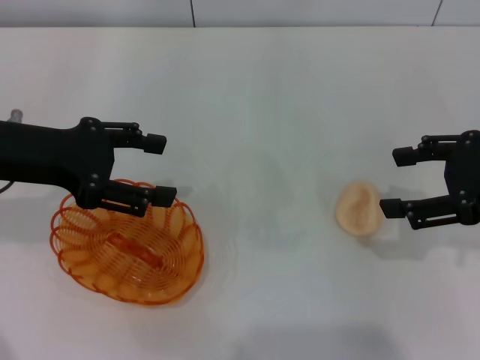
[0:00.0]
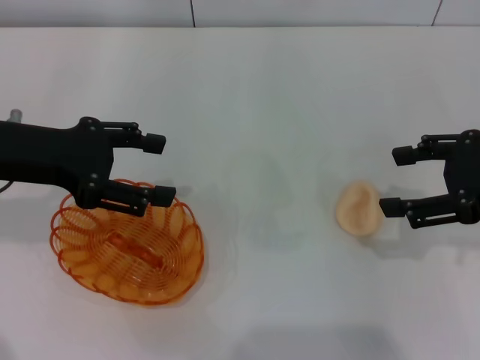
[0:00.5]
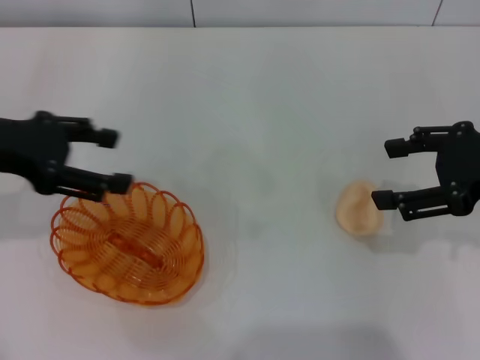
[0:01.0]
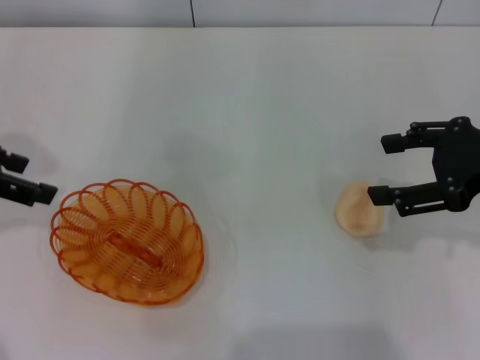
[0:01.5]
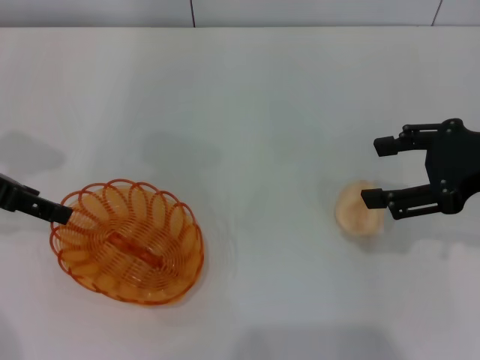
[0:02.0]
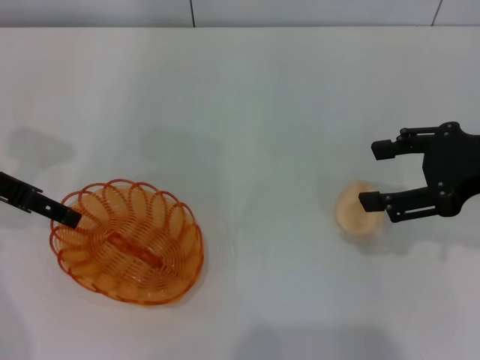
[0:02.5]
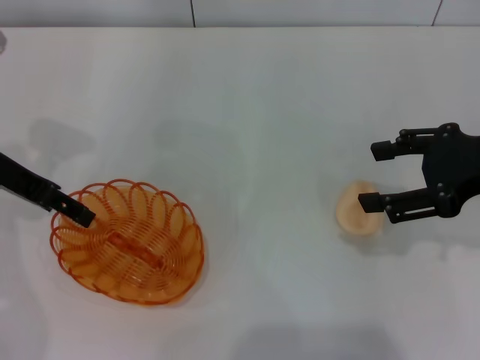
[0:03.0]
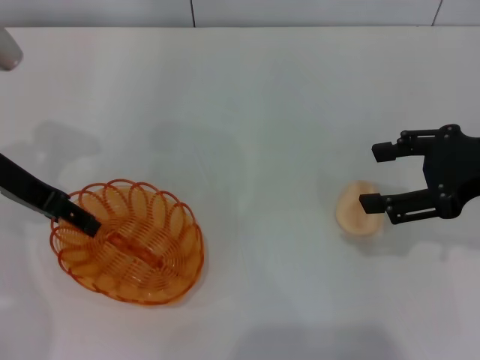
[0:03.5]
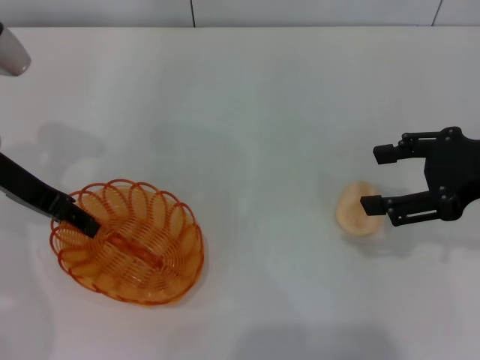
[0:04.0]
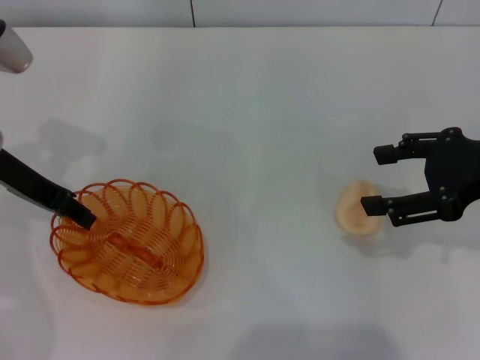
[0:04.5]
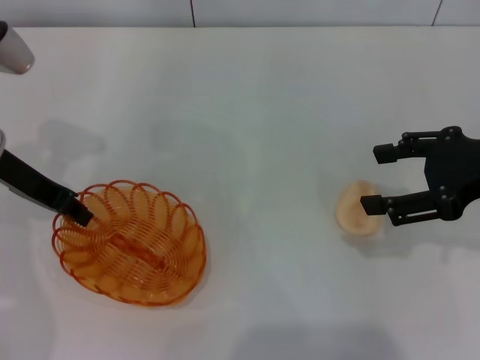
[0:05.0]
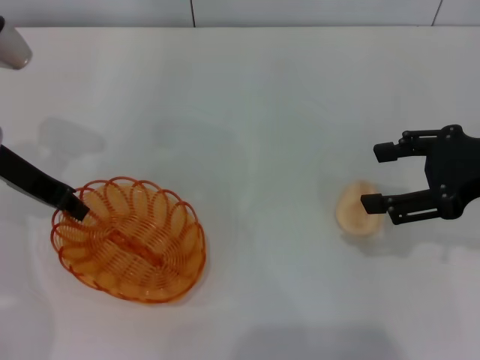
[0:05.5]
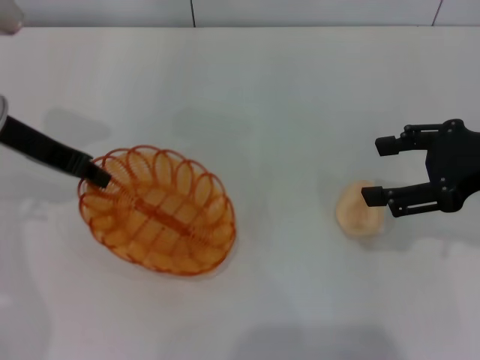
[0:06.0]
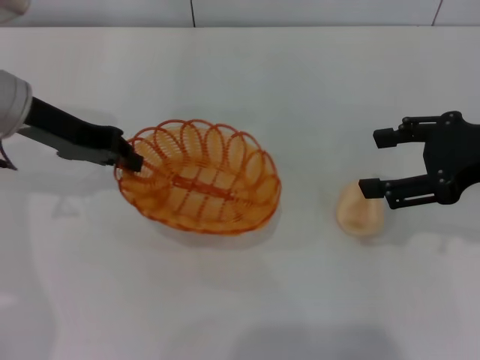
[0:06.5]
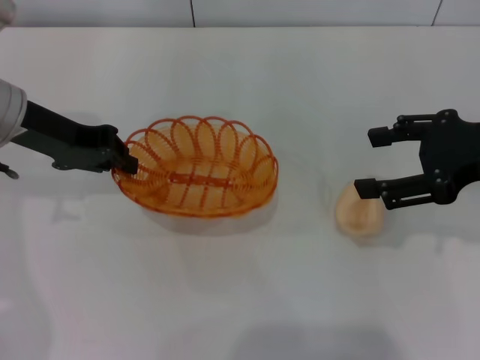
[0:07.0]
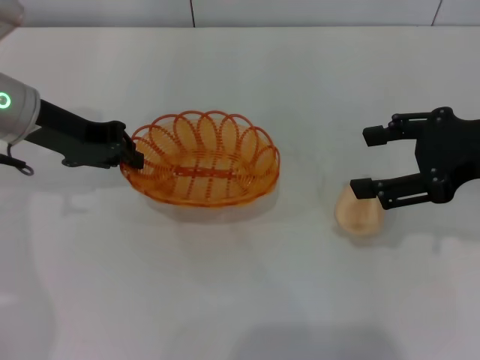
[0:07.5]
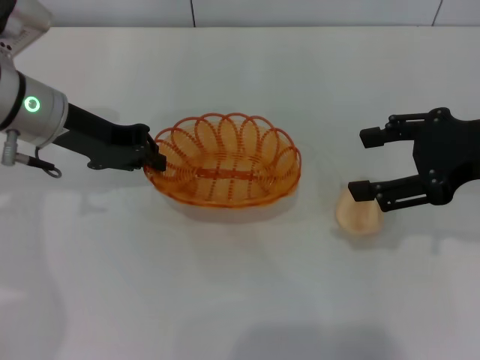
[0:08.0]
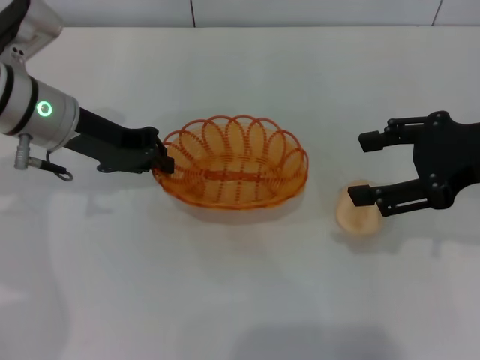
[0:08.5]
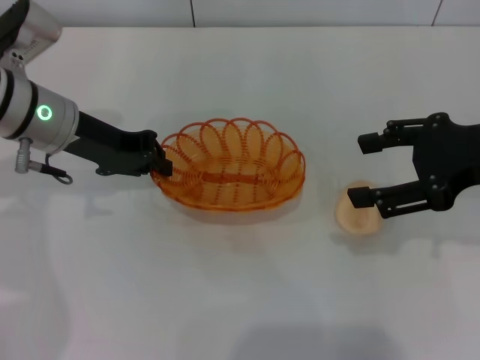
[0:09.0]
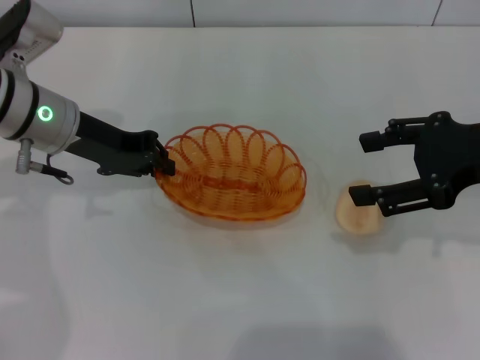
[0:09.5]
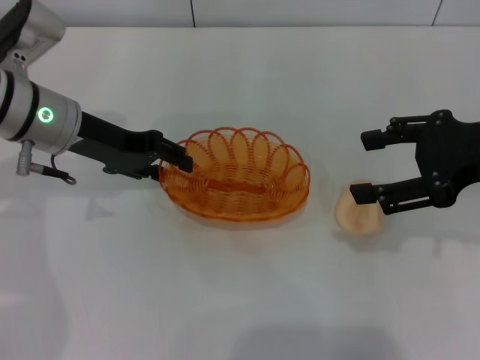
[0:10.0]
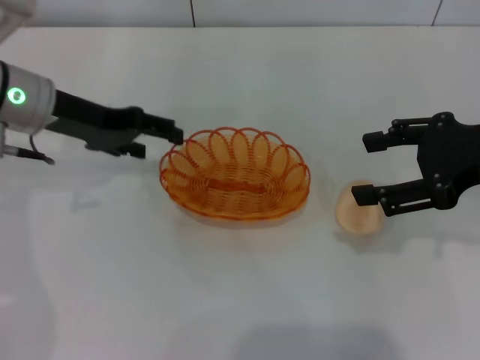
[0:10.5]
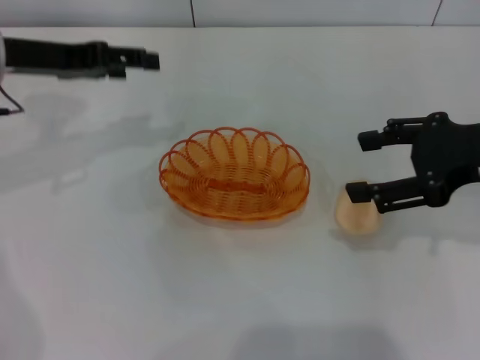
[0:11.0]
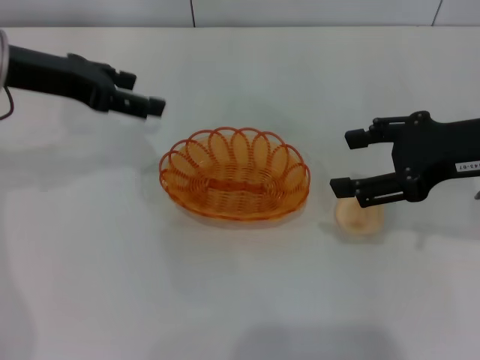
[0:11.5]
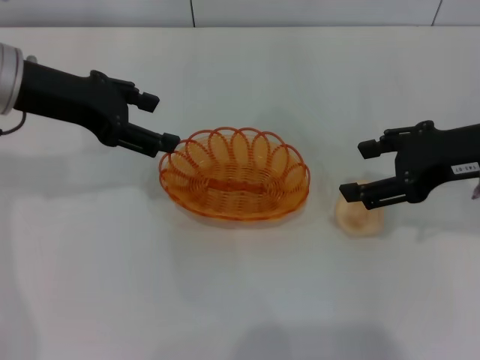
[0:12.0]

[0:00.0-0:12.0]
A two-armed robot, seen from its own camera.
Step, 0:00.0 to 0:07.0: Pick up the basket with the left gripper.
Step, 0:07.5 to 0:10.5: Place the basket in the center of view with the left gripper.
0:00.0 to 0:02.0: The left gripper heads to the left, covering some 5 cm.
0:02.0 to 0:04.0: The left gripper shifts by about 5 cm.
0:04.0 to 0:06.0: The left gripper closes.
0:08.0 to 0:10.0: The left gripper opens its fingers.
0:10.0 to 0:12.0: The left gripper shifts roughly 5 cm upward, and opens.

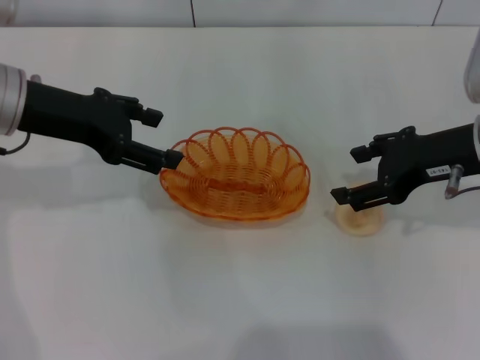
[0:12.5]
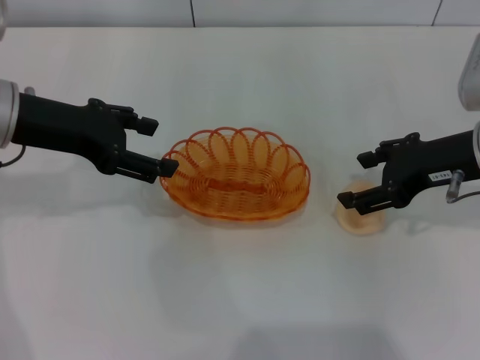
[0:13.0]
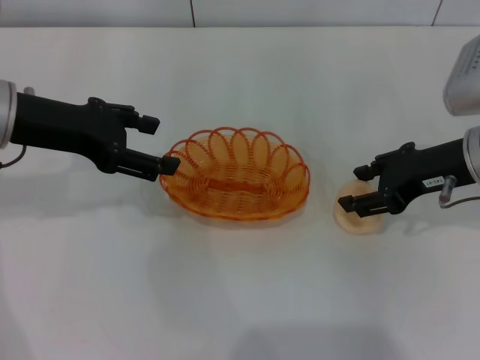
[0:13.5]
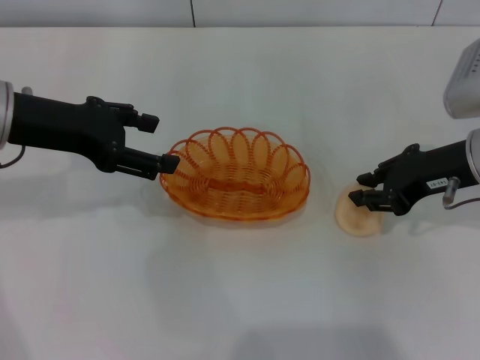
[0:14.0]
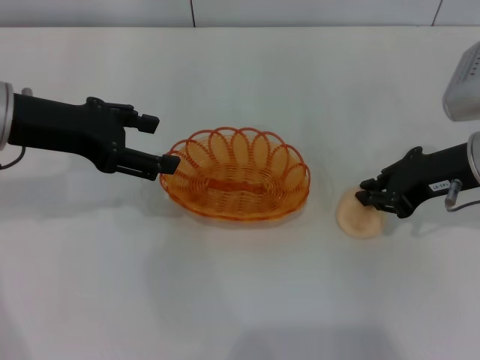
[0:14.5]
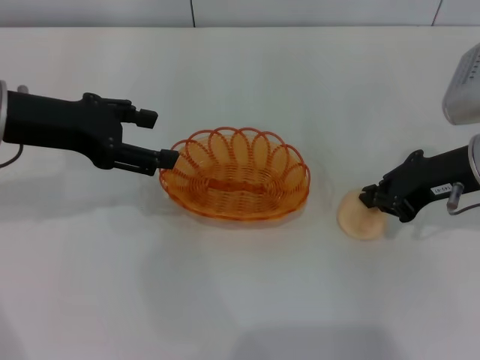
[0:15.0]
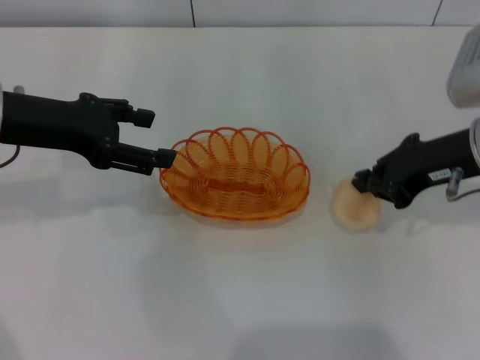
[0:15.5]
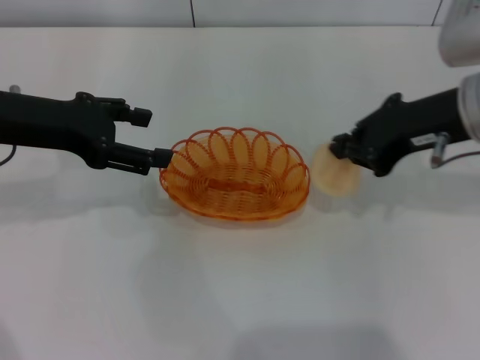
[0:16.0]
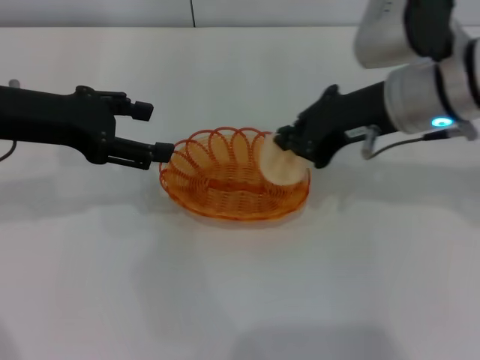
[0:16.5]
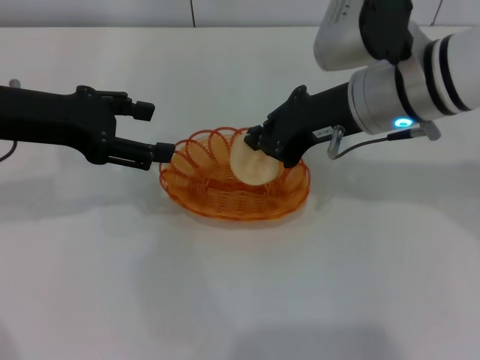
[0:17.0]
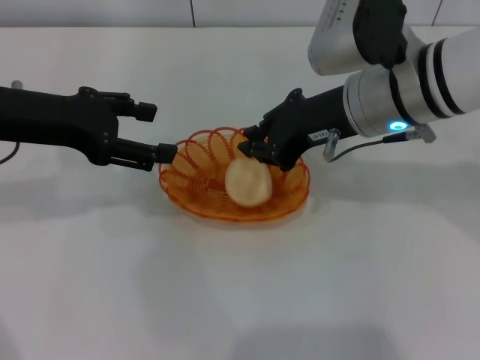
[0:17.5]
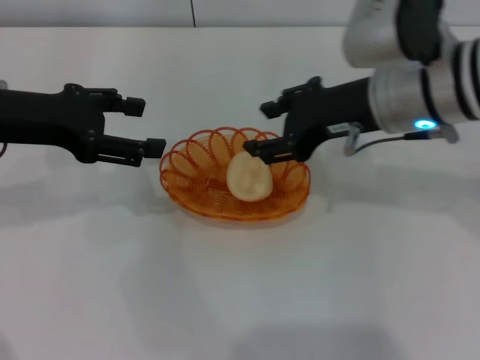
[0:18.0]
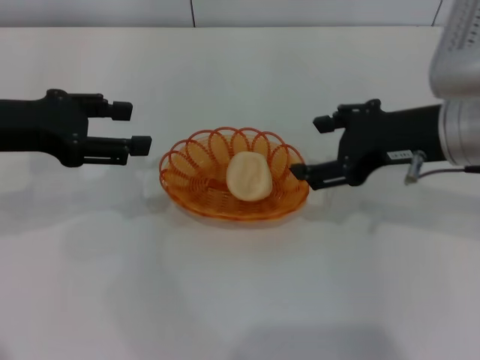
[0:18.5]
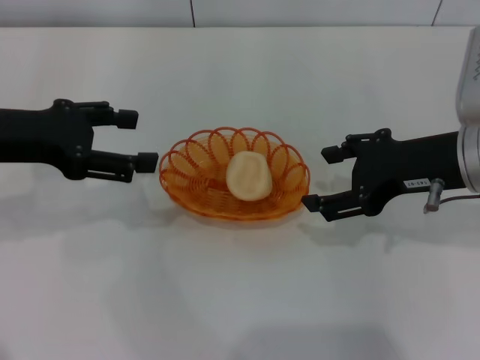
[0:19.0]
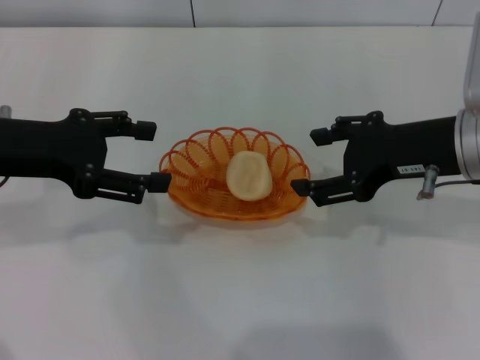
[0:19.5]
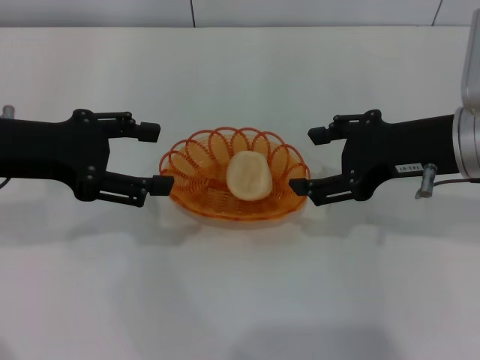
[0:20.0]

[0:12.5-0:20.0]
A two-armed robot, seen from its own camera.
Step, 0:12.5 to 0:15.5: Pick up the egg yolk pastry with the right gripper.
Step, 0:16.0 to 0:18.0: Place the egg yolk pastry into the basket with the right gripper.
0:12.5 to 0:14.5: The right gripper closes its fingers.
0:14.5 to 0:16.5: The right gripper heads to the left and upward, covering about 10 cm.
0:16.5 to 0:18.0: The right gripper opens.
0:18.0 to 0:20.0: The right gripper is displaced to the right by roughly 5 cm, and opens.

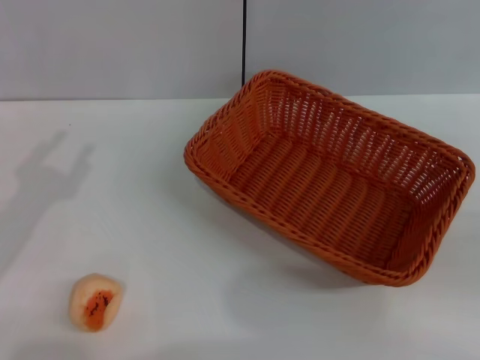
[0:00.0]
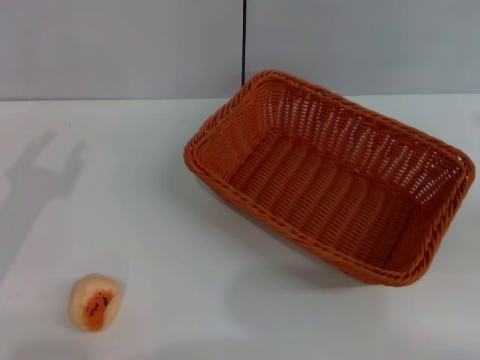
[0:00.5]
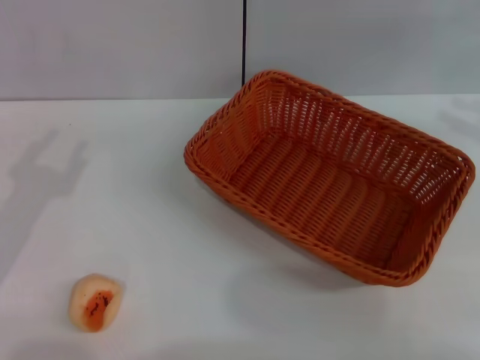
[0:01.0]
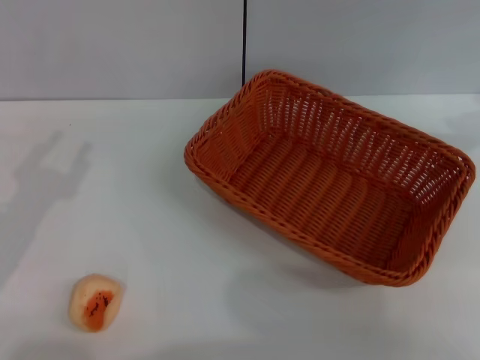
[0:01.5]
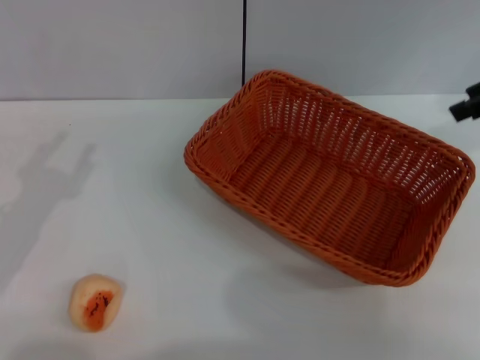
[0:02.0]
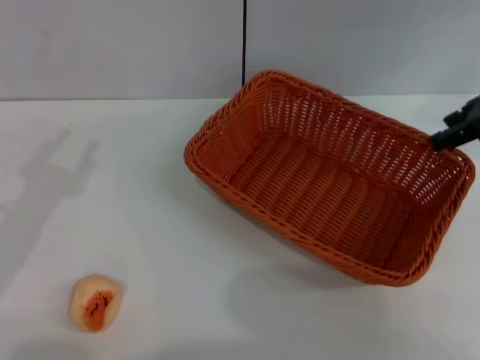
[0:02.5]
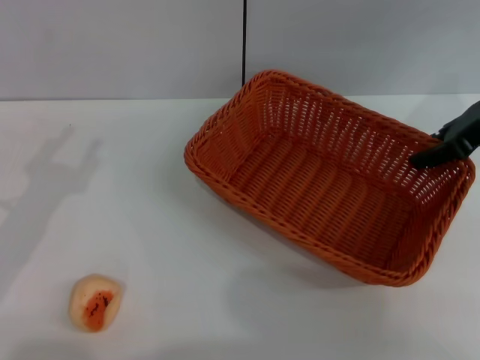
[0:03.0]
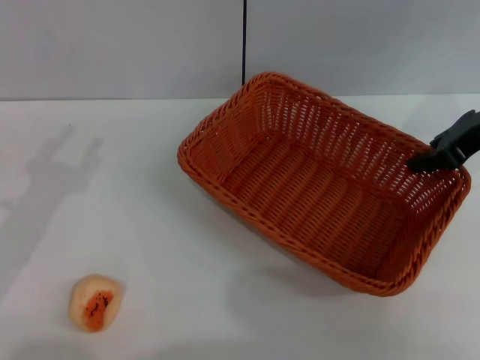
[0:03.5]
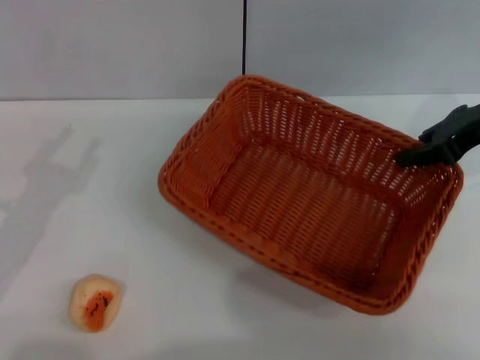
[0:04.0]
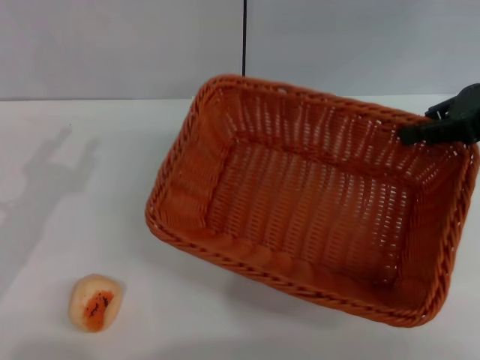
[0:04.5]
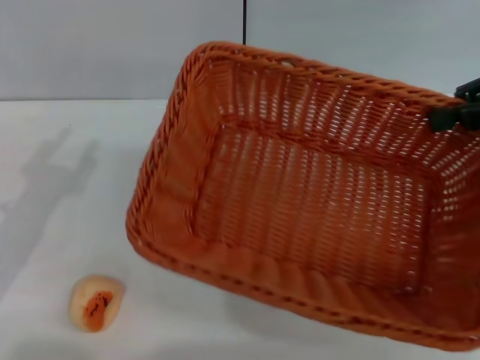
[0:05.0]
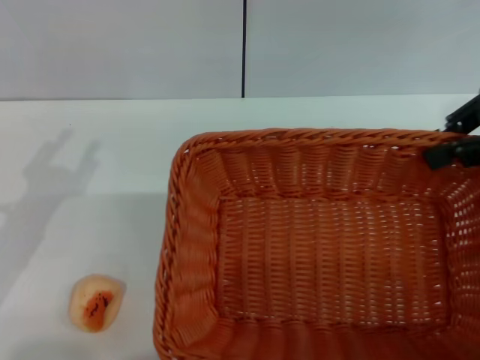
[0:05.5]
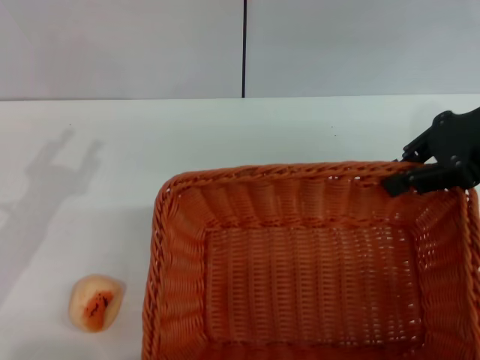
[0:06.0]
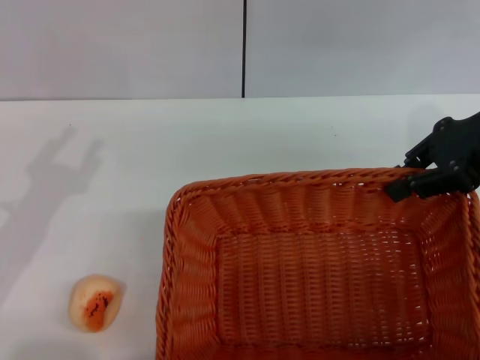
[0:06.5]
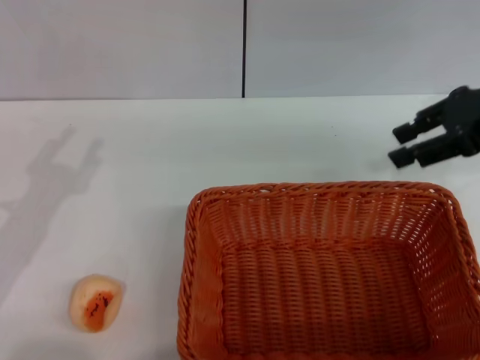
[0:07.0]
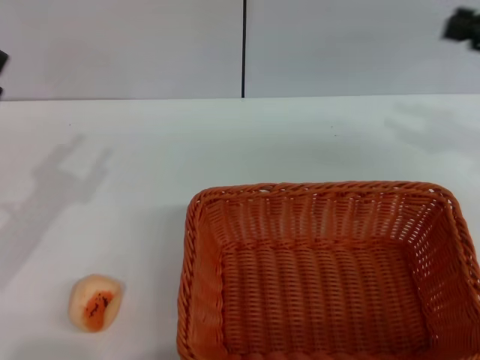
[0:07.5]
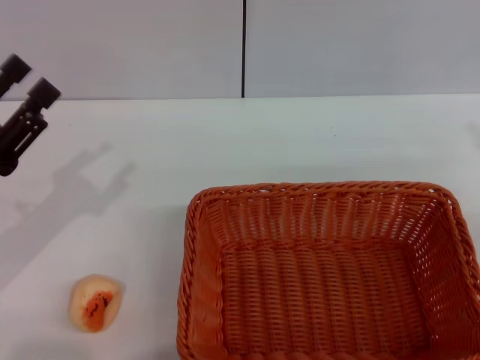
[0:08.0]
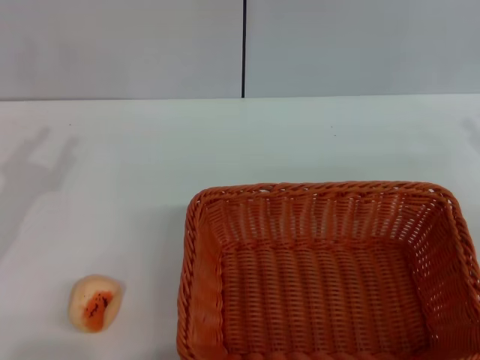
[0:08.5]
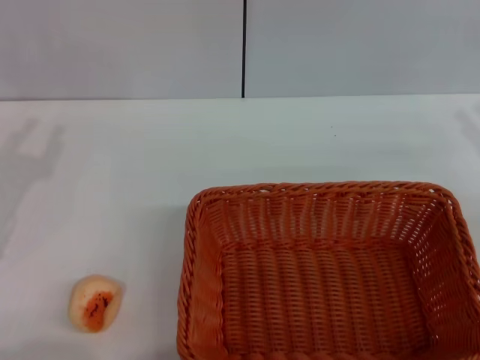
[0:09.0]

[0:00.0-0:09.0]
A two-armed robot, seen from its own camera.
0:00.0 to 0:02.0: The right gripper shifts approximately 20 cm forward, upward and to the left.
0:02.0 to 0:04.5: The right gripper closes up.
0:07.0 to 0:09.0: The right gripper shifts roughly 15 cm downward, backward and to the right.
